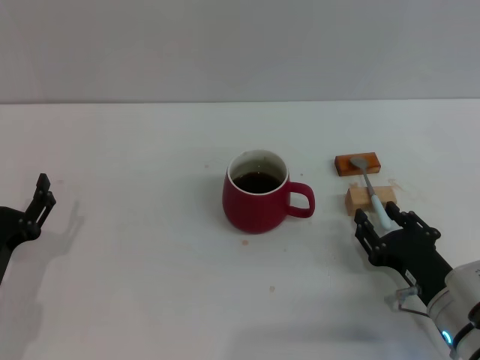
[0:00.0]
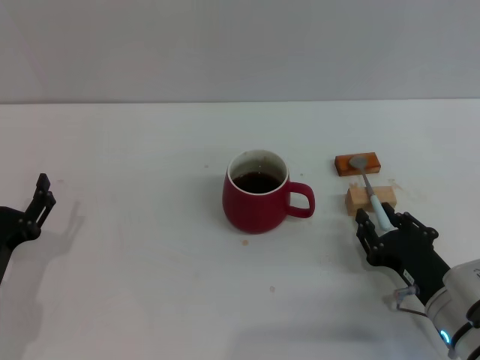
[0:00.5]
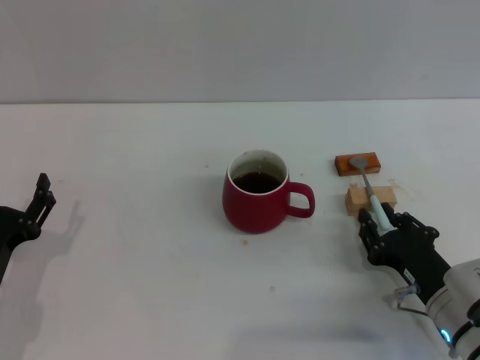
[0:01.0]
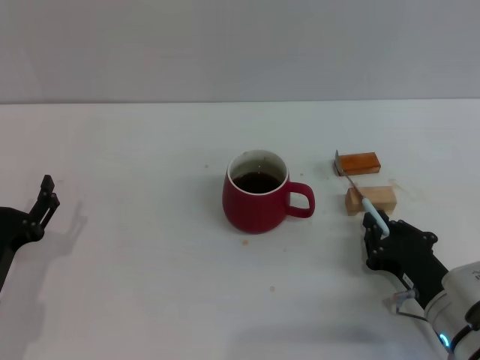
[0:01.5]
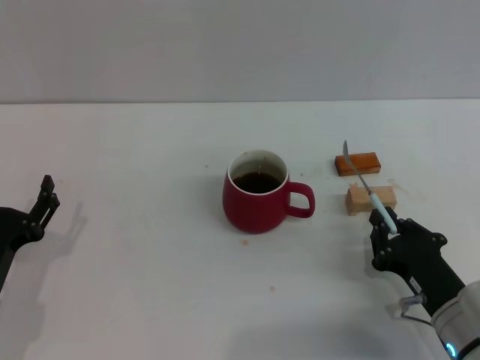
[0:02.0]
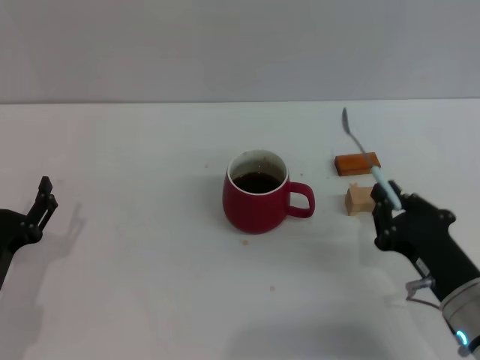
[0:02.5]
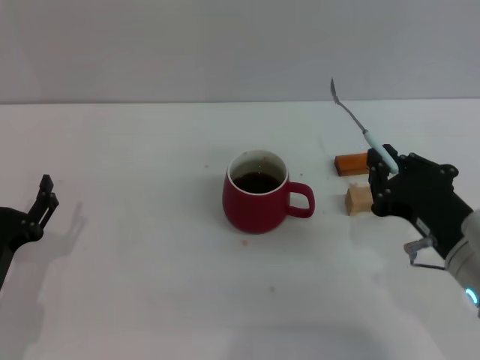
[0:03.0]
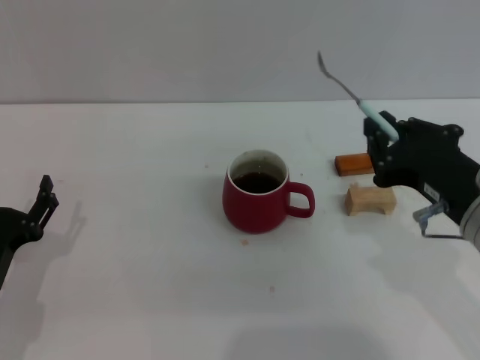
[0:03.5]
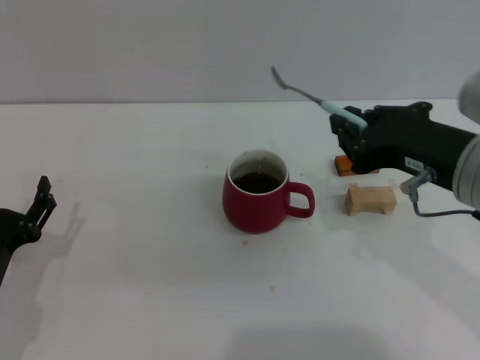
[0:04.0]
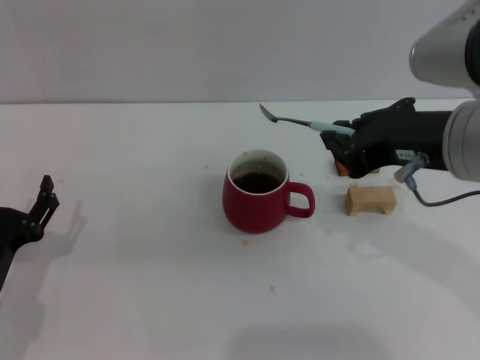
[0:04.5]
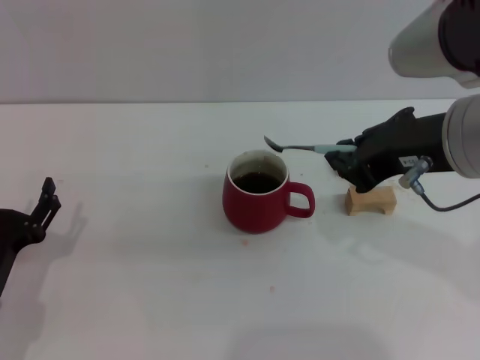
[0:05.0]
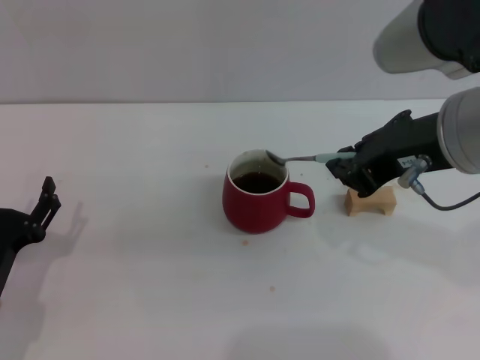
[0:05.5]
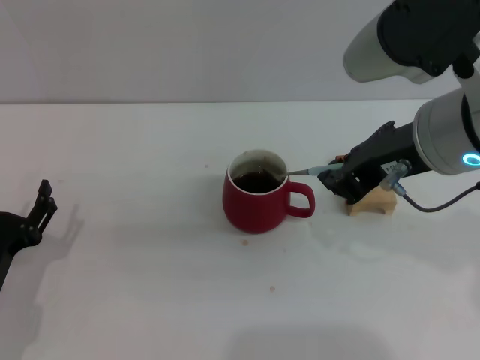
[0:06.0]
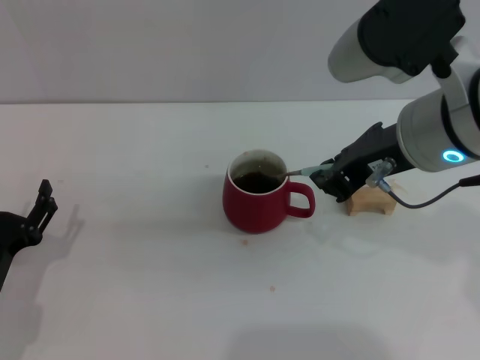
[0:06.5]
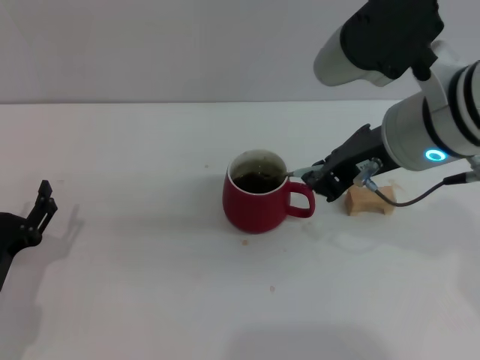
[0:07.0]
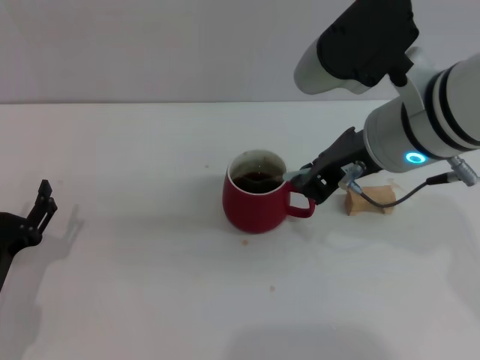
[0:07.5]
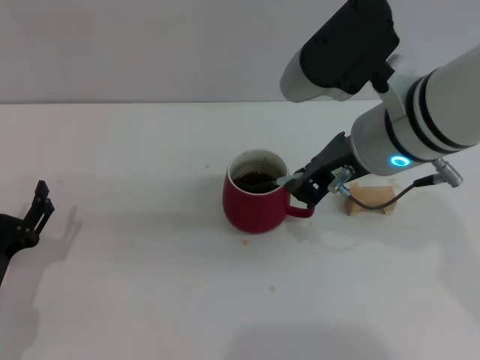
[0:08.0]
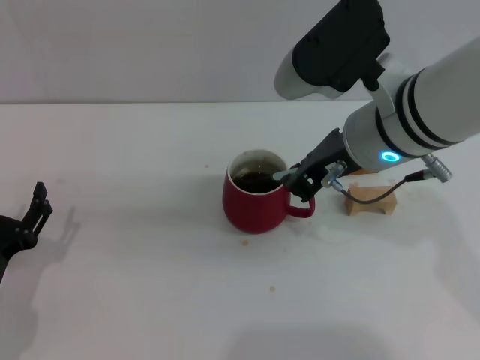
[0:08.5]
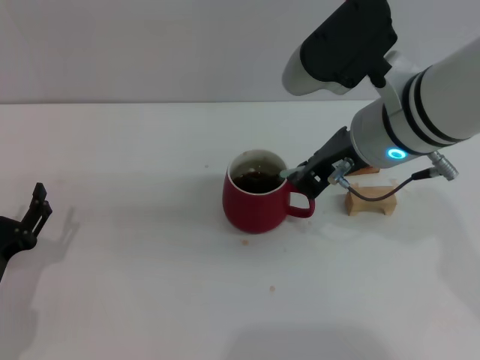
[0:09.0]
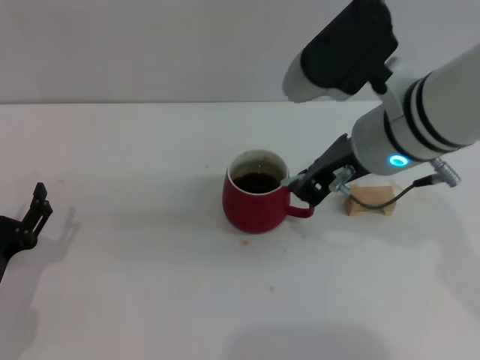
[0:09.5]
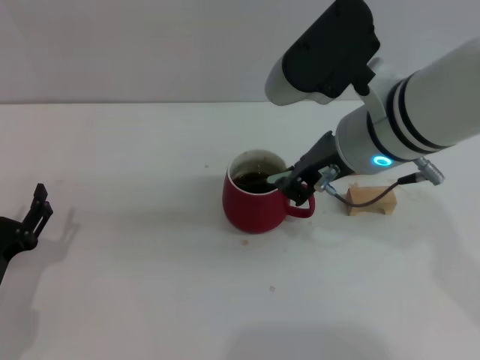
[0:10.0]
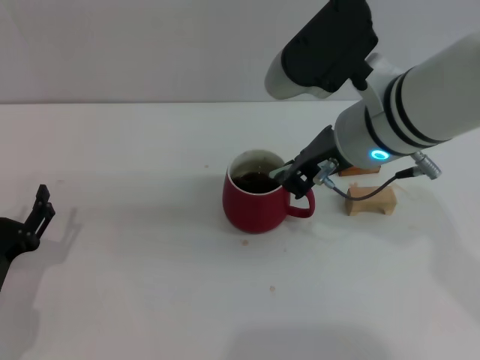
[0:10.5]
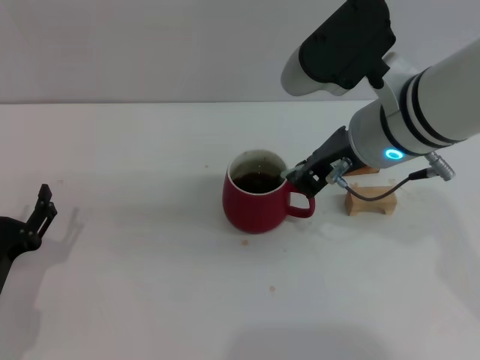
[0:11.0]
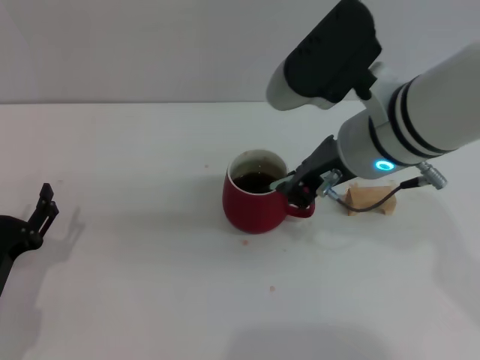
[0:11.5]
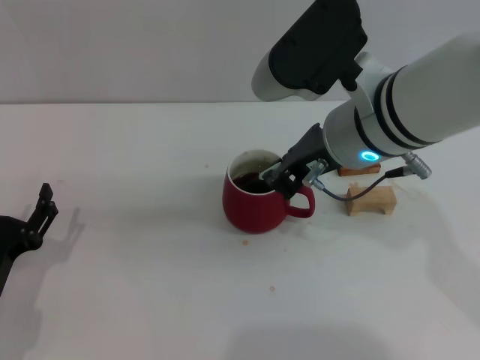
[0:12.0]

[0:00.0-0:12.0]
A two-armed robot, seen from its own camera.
Task of the whole recording: Move the red cup to the center, lift the blue spoon, stir it three times in the cup, and put the spoon into the cup.
Step, 0:00.0 to 0:03.0: Pick up the spoon with the right gripper.
0:00.0 to 0:02.0: The right gripper closes up.
0:02.0 to 0:04.0: The right gripper heads upward, covering about 20 cm.
0:04.0 to 0:06.0: The right gripper ends up roughly 5 cm from where it was.
0:06.0 to 0:08.0: The right gripper moves roughly 5 cm.
0:08.0 to 0:12.0: There are only small adjustments of the grippers.

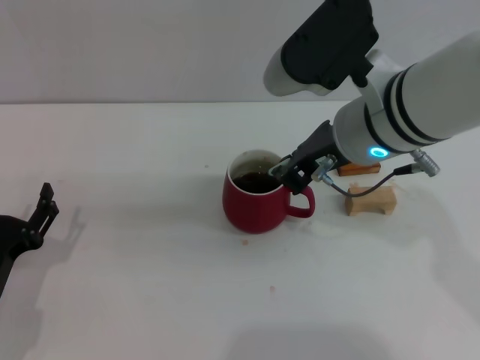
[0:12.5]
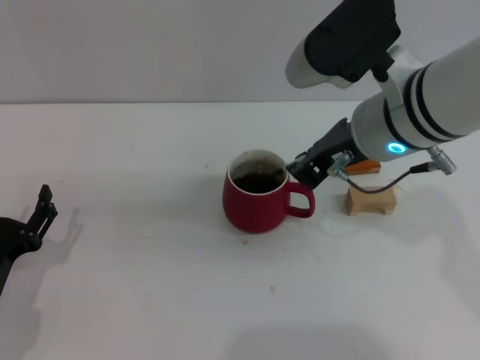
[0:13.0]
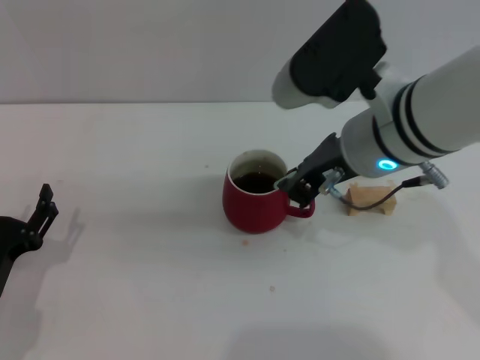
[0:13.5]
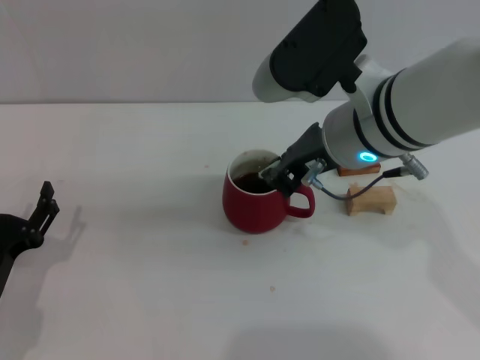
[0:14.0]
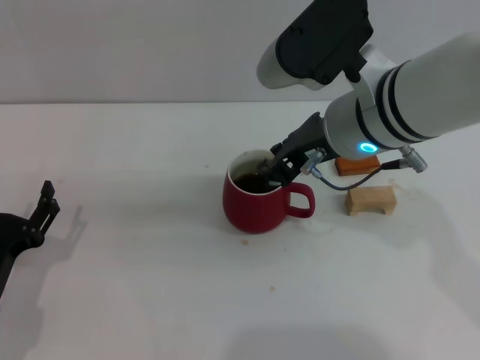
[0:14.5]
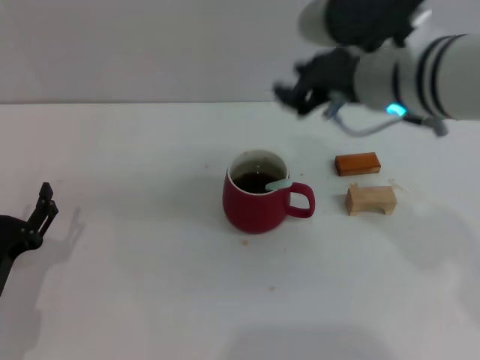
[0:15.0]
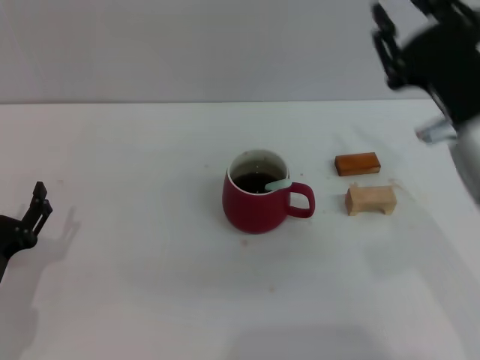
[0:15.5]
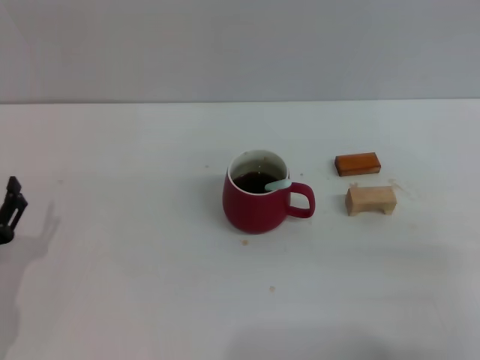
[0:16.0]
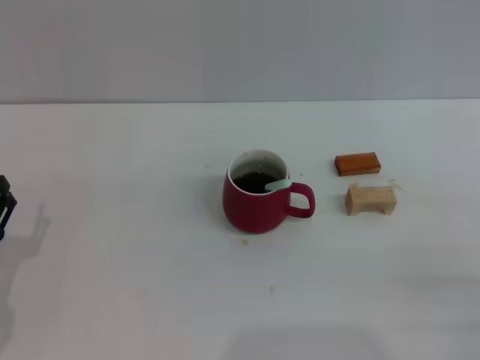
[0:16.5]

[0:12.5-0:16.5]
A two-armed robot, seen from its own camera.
Task of the whole recording: Move the red cup to the center, lift the blue spoon, stir it three times in the cup, and put the spoon into the cup.
Step, 0:12.5 to 0:14.5: Stir the coffee in the cup with the right gripper.
0:12.5 to 0:14.5: The grippers make only small movements.
0:14.5 to 0:16.5: The right gripper heads to the right, backward and downward, covering approximately 35 cm, and opens.
